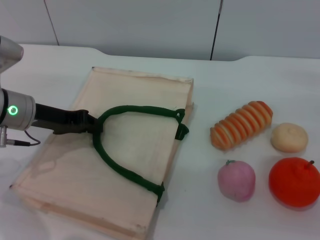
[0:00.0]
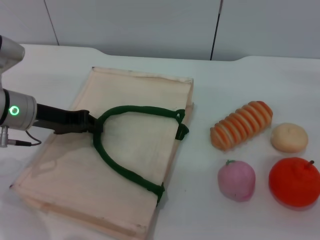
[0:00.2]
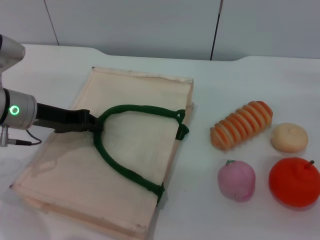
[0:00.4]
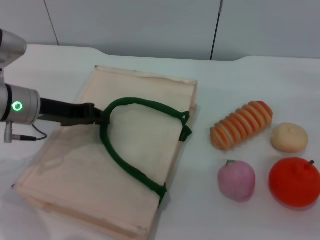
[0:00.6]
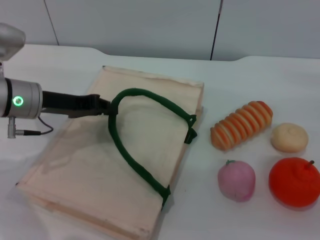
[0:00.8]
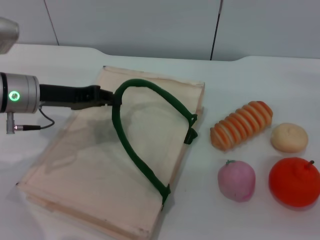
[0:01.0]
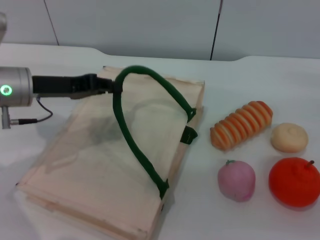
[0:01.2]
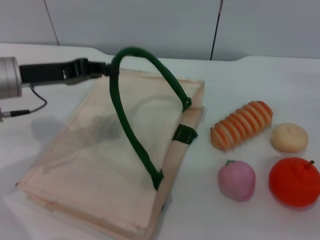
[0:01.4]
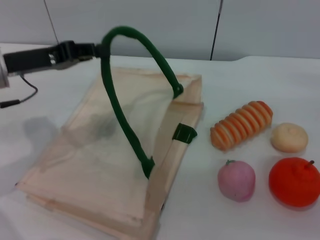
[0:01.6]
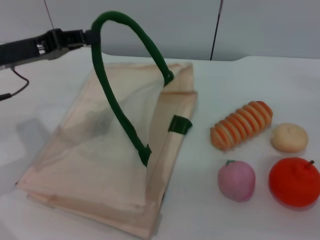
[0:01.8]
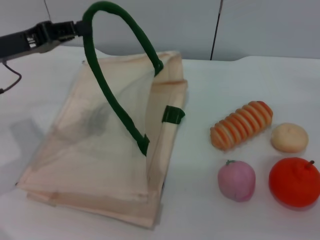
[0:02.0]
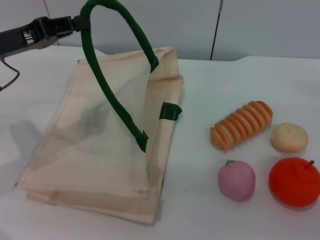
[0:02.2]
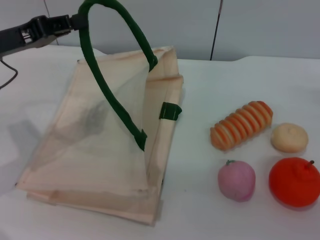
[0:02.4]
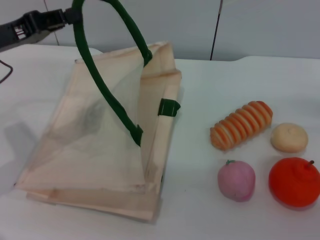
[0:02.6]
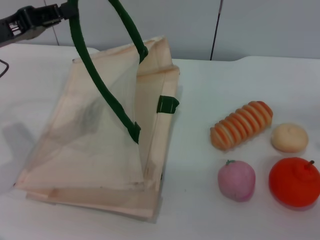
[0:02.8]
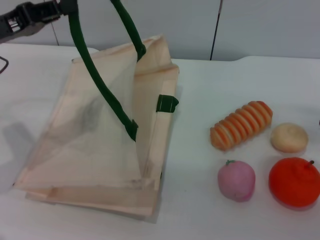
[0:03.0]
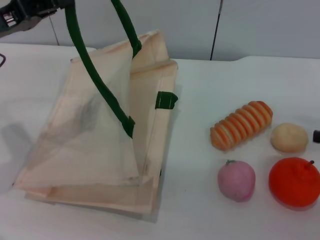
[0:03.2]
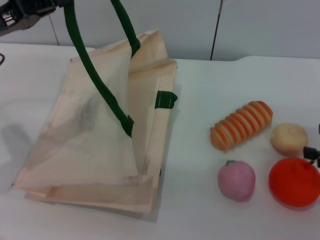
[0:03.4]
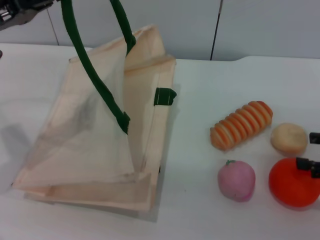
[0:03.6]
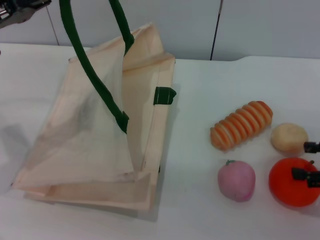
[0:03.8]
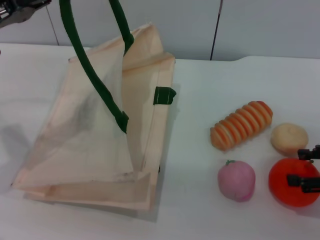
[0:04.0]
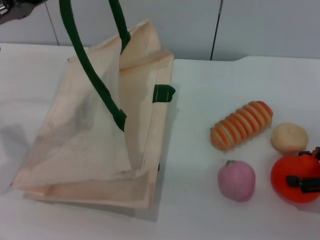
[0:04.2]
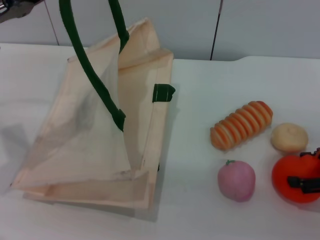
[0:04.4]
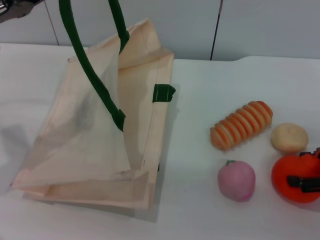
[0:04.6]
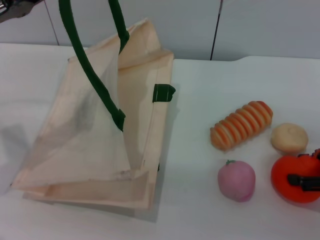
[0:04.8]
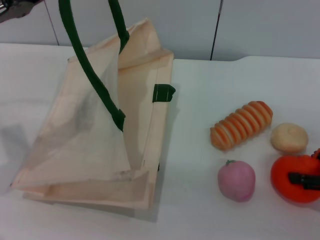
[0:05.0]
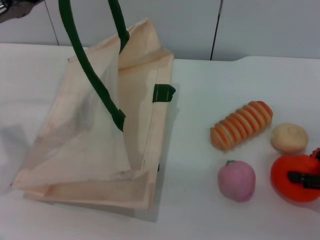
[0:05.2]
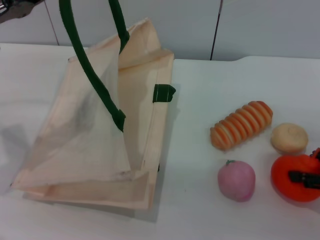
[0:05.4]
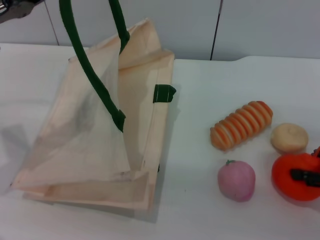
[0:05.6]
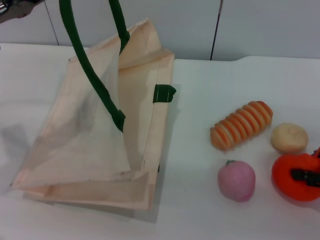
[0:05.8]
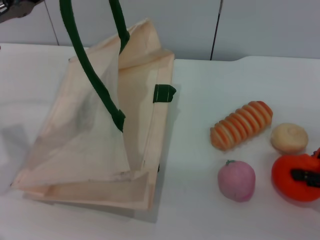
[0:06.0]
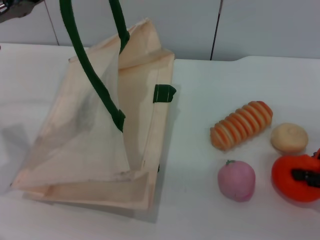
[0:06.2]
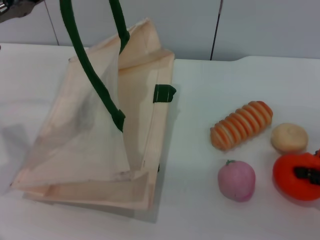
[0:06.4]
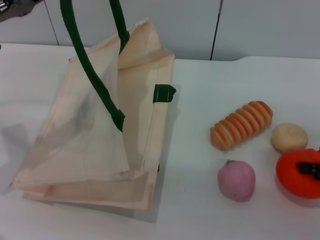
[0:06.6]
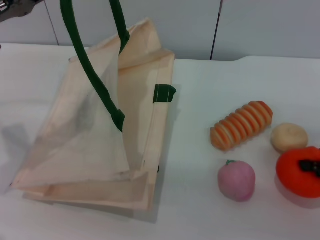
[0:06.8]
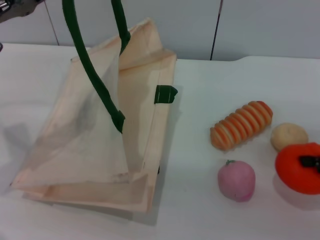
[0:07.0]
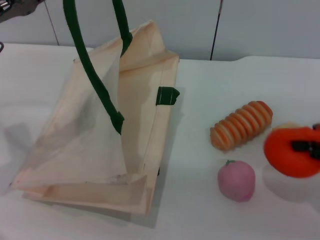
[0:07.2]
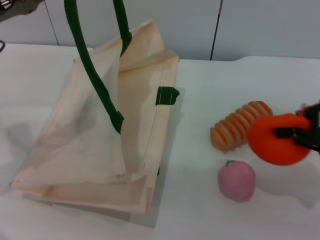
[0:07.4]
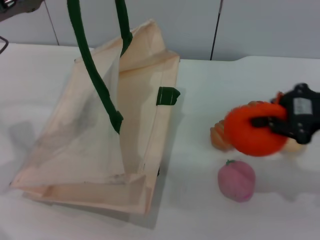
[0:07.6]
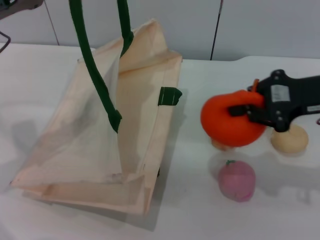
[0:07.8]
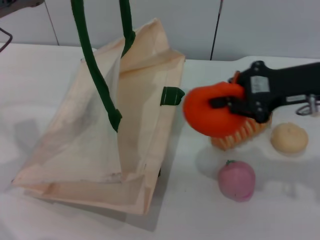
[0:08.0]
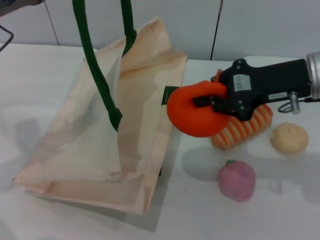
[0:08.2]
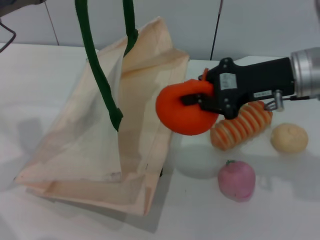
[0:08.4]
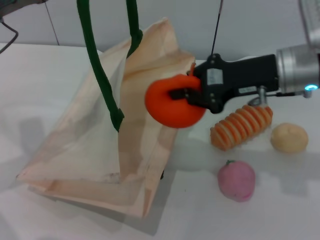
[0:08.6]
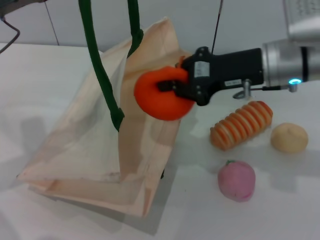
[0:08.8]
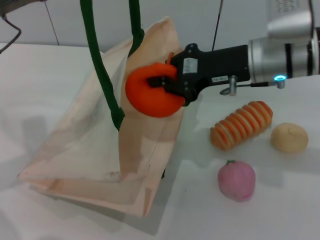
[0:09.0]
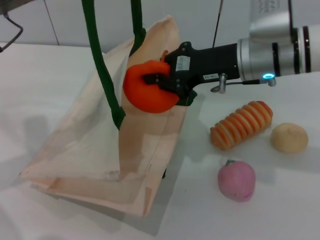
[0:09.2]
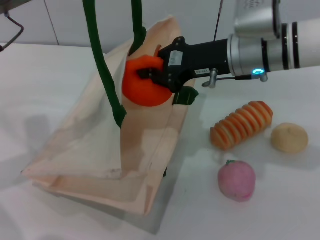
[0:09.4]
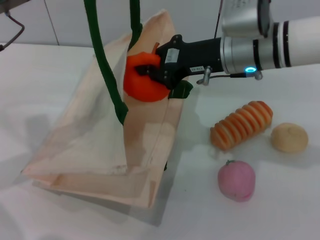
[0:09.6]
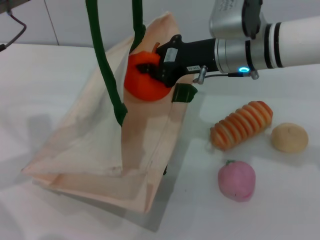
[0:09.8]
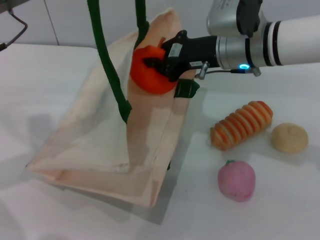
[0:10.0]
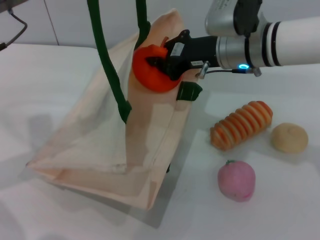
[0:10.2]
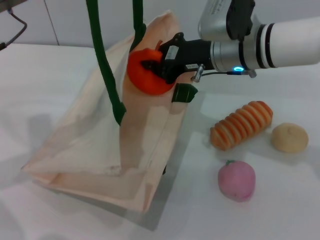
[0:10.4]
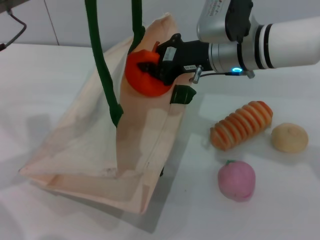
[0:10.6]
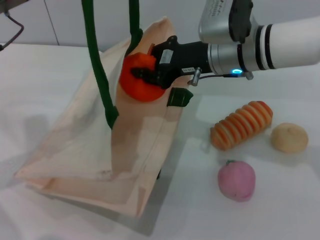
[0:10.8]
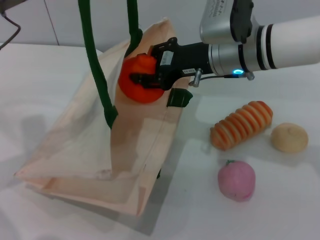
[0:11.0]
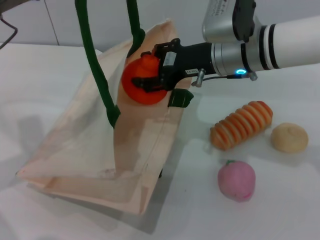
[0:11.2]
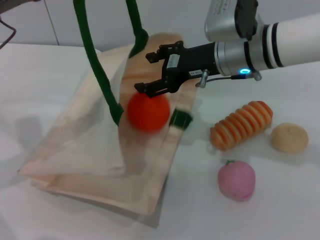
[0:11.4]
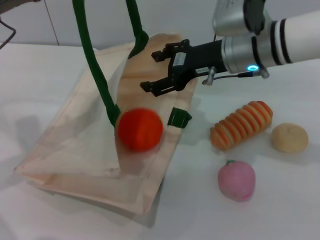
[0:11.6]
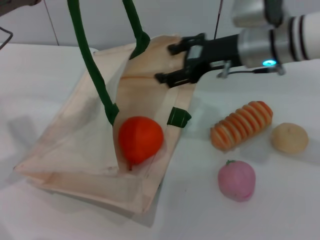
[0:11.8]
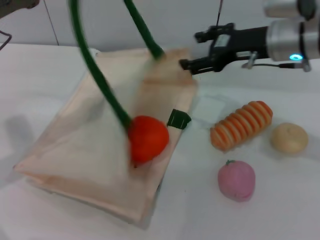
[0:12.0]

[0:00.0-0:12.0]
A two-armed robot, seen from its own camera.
Task of the whole recording: pick up the orange from the table and place it in the white handbag.
Step, 0.0 to 3.2 s: Lift the woven bag with the left gripper to open it.
Step, 3.4 to 6.8 s: Pick up the orange with the right gripper.
Step, 7.0 to 11.4 s: Place the orange into the woven bag with the right gripper.
0.0 to 1.6 s: The left gripper goes about 5 cm upward.
1.6 to 3.0 s: The right gripper travels backward by roughly 5 cm.
4.4 to 6.0 s: The right gripper closes up.
6.0 to 7.6 s: The right gripper is displaced upward and to the left by approximately 10 cm, and closes up.
7.6 to 9.0 s: The right gripper is displaced to the left and forward by some 15 cm.
9.0 to 10.4 s: The right gripper changes place by some 5 cm.
10.4 to 12.0 s: The right gripper shifts approximately 5 cm to the right, and opens its fingers.

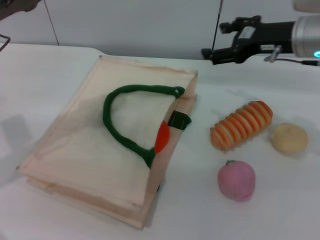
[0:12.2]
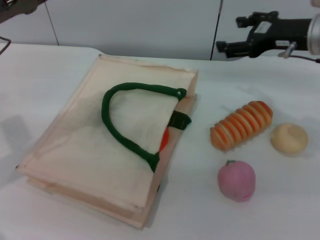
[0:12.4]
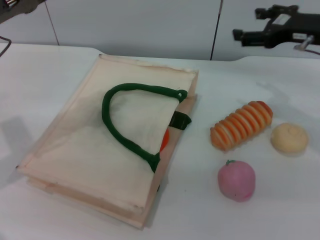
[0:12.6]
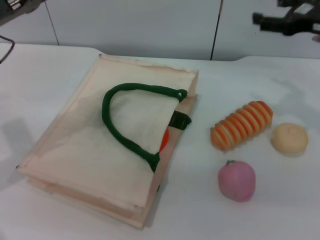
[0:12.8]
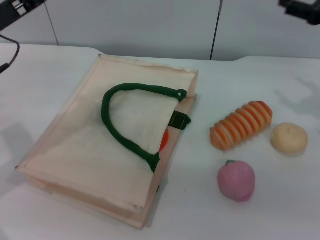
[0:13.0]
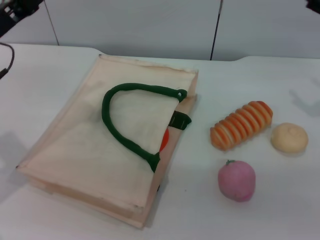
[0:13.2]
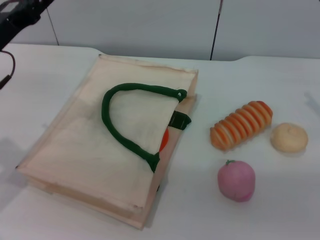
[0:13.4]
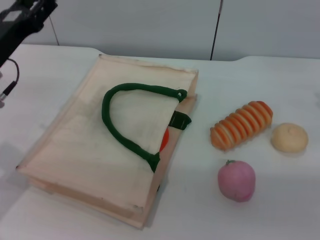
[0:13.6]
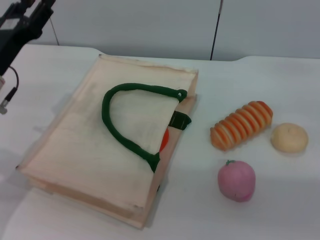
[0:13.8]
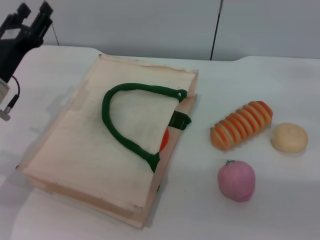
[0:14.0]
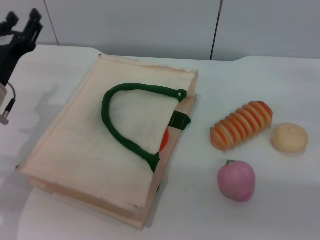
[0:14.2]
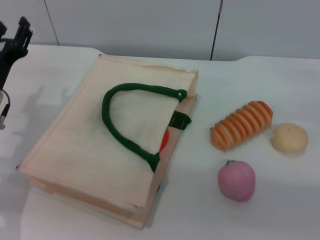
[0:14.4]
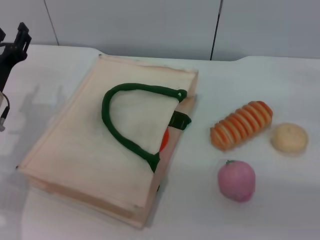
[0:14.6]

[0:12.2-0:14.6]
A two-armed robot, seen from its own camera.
Task of the whole recording: pick up the orange from the table and place it in the white handbag.
12.2 to 13.4 s: The right gripper travels to the right by roughly 15 cm, while the left gripper shifts roughly 5 cm downward, and opens.
13.4 to 14.6 s: The left gripper goes approximately 5 cm downward.

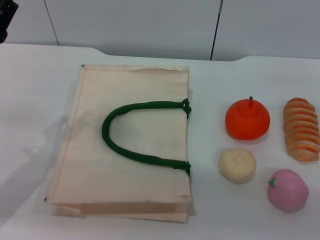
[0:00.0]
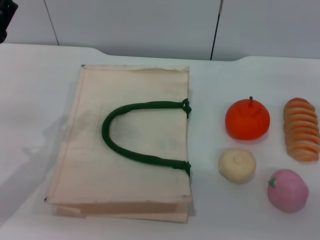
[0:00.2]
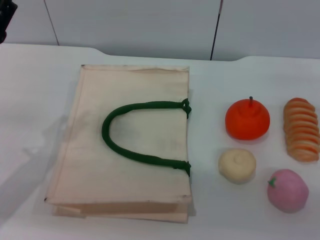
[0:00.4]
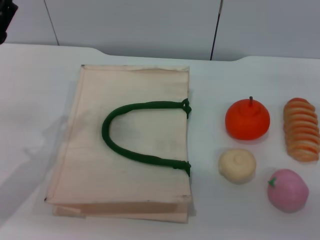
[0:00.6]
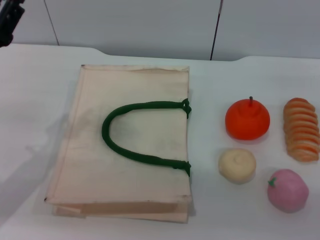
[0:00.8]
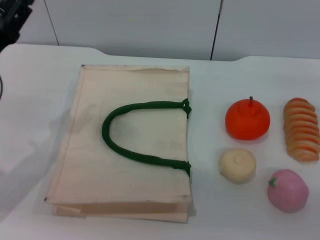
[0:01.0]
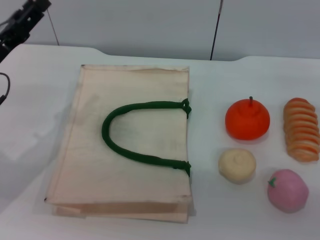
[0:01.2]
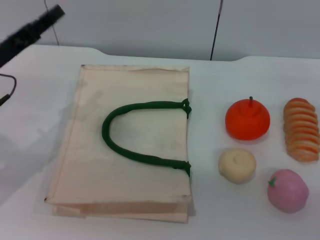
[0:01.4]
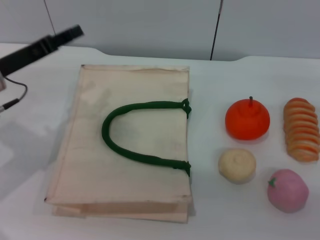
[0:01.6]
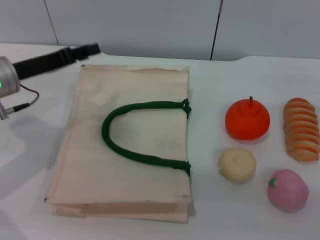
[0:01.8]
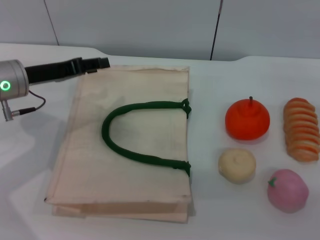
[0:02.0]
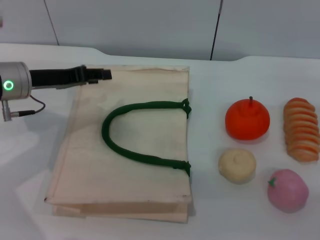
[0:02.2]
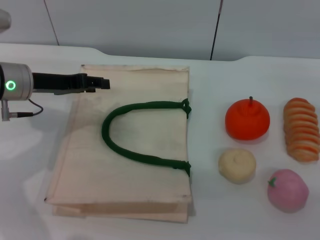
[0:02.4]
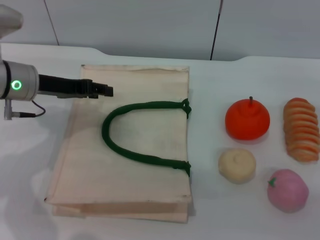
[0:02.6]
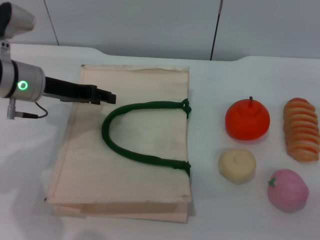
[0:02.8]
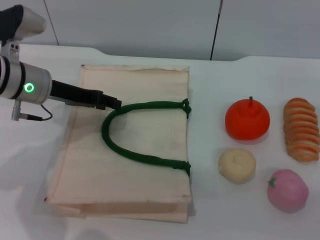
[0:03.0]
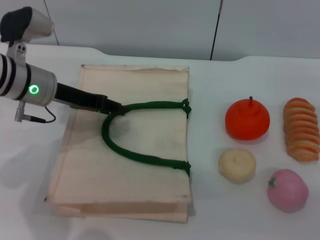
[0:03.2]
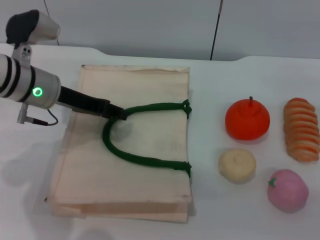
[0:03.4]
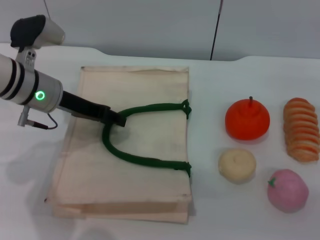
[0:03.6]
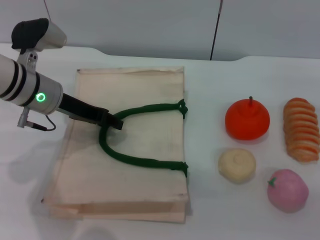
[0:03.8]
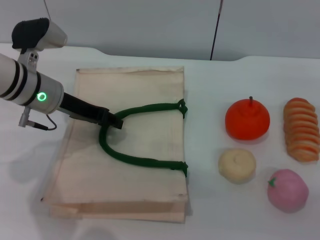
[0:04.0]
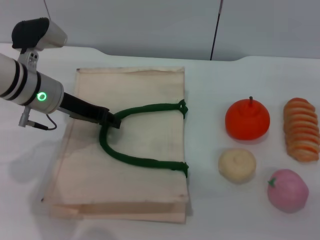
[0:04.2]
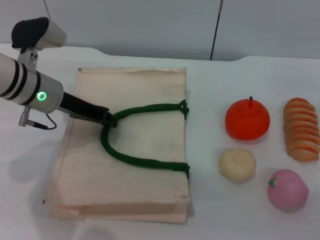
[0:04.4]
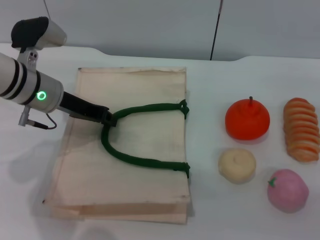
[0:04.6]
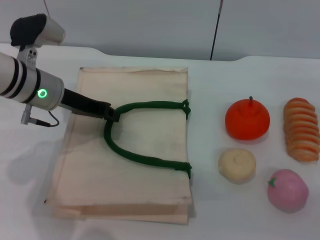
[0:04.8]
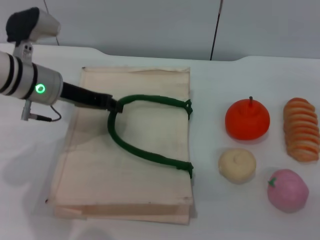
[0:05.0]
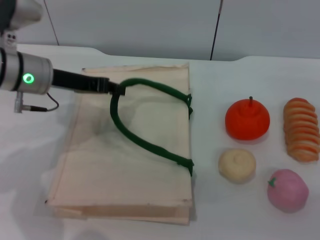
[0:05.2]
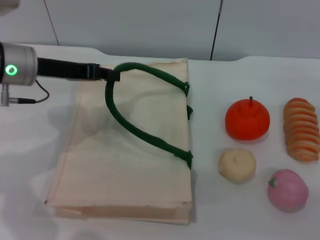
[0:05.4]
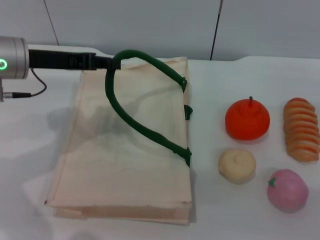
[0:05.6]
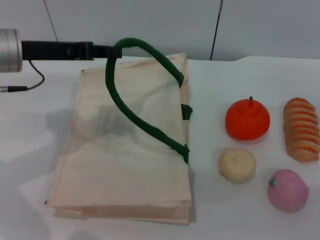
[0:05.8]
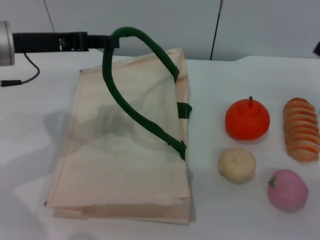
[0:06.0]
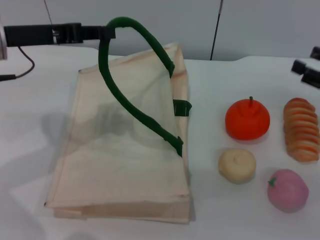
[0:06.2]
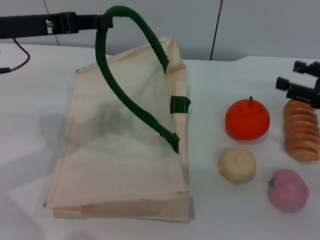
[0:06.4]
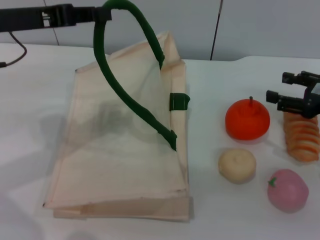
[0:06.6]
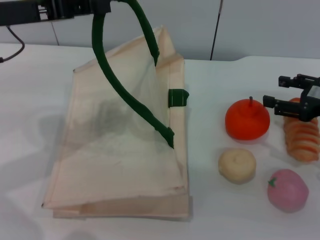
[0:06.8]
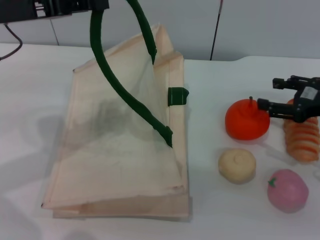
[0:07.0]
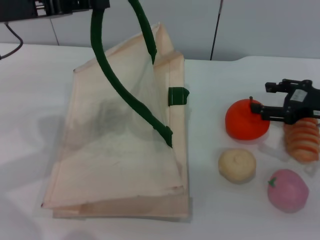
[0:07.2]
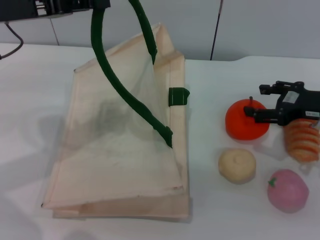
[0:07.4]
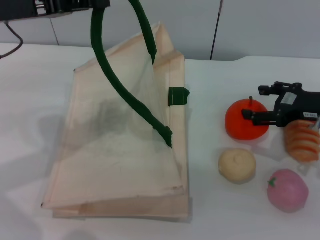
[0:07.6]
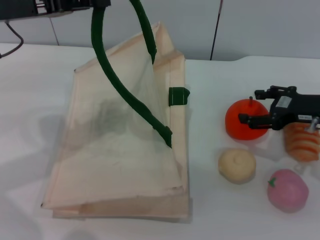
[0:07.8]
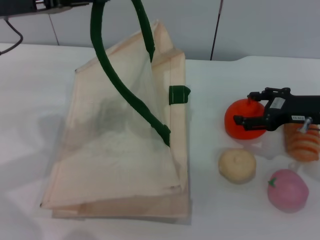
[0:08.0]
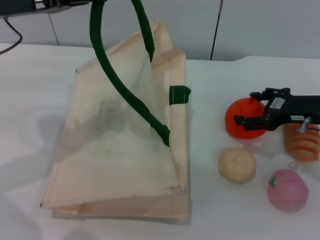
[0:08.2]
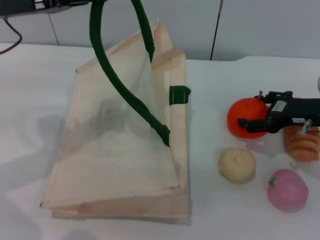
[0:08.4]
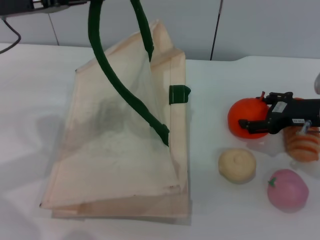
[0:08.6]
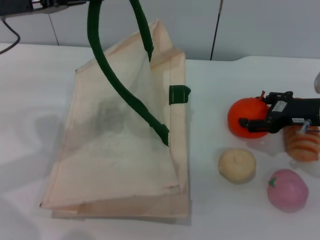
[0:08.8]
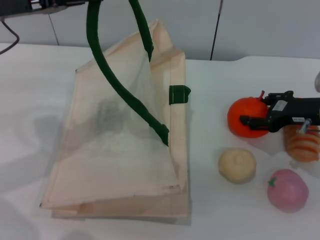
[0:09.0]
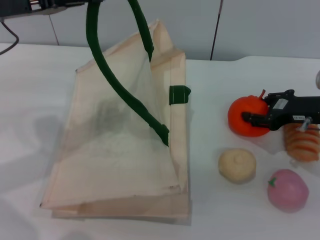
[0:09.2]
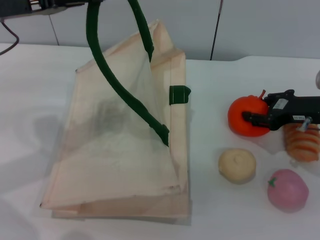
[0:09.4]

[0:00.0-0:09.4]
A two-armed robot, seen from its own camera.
Task of the whole recording: pick up the orange from the table and place it in the white handbag.
Step, 0.0 to 6.2 s: Lift the woven bag with the left gripper to open it.
0.0 to 1.6 s: The left gripper is displaced forward by approximately 5 cm.
1.6 to 3.2 s: The left gripper moves to the right, some 5 cm.
3.2 to 4.8 s: The left gripper closes up.
4.8 to 6.2 s: The left gripper heads upward, covering roughly 10 cm.
6.2 to 7.8 s: The right gripper goes about 5 cm to the left.
7.8 to 9.4 s: The right gripper closes.
